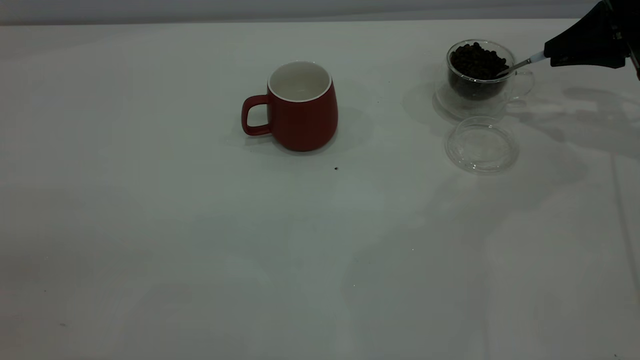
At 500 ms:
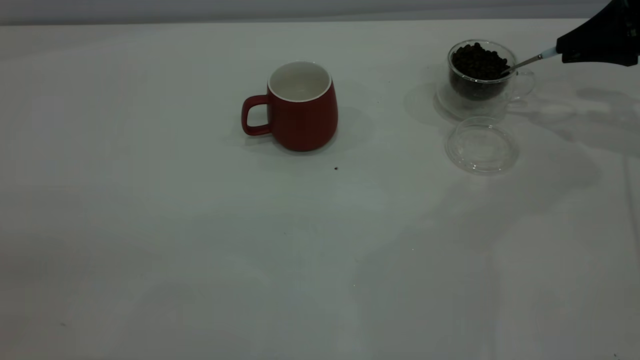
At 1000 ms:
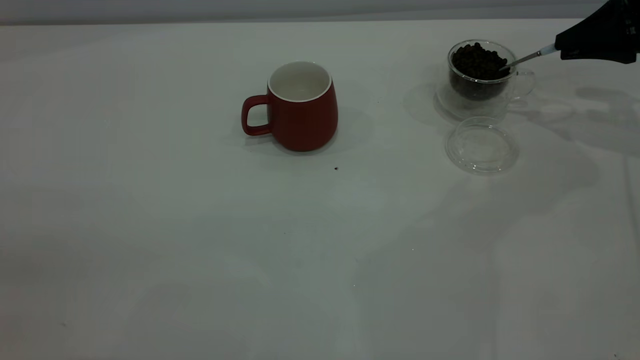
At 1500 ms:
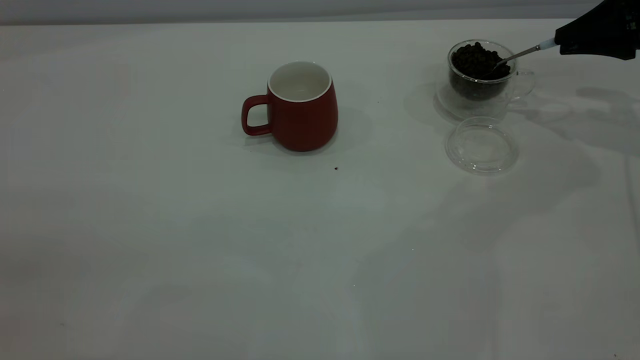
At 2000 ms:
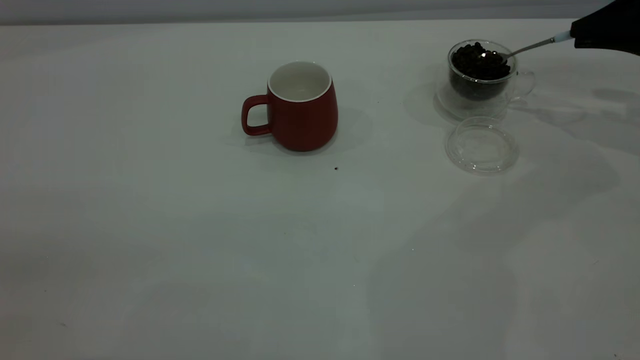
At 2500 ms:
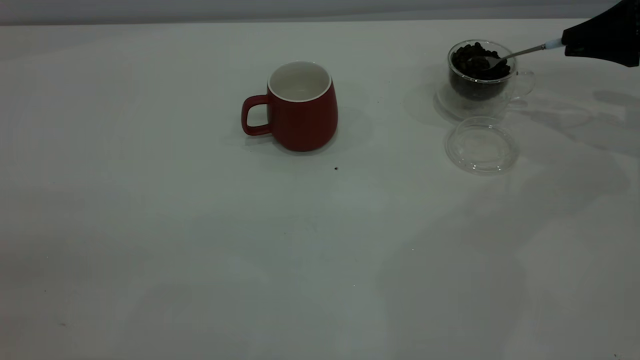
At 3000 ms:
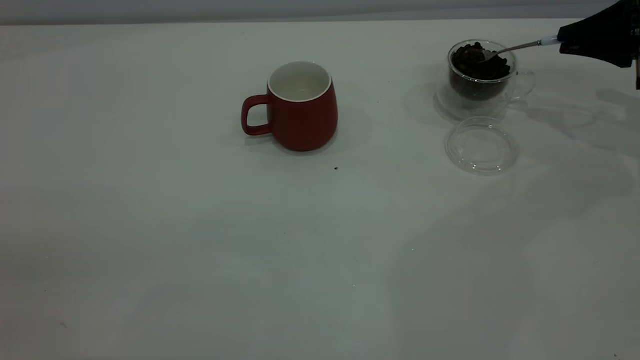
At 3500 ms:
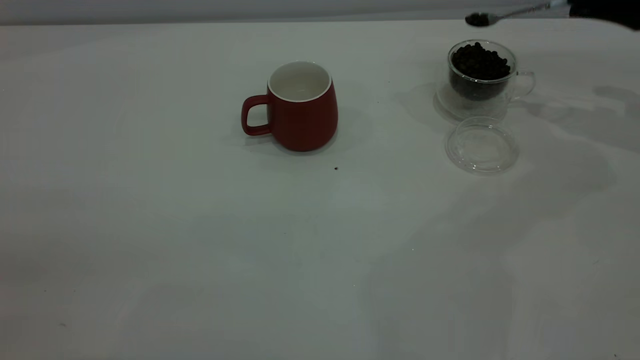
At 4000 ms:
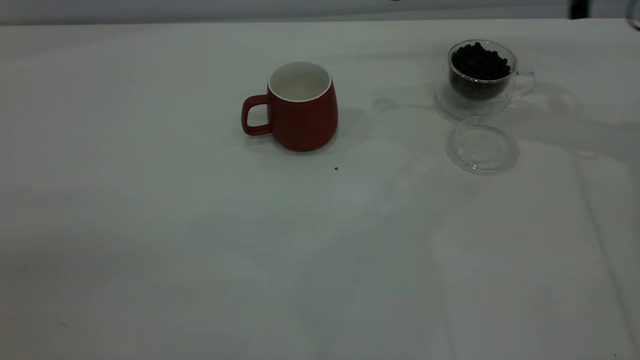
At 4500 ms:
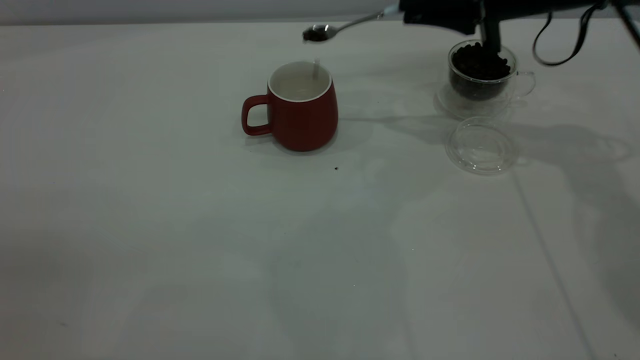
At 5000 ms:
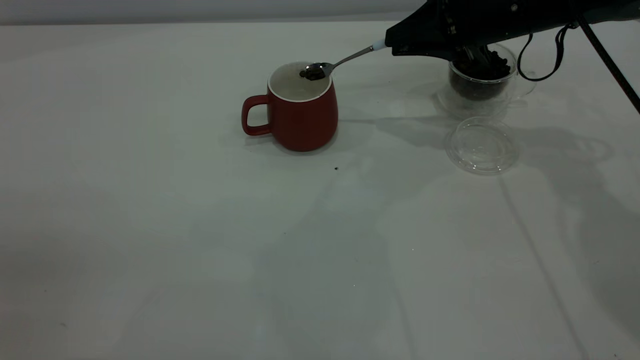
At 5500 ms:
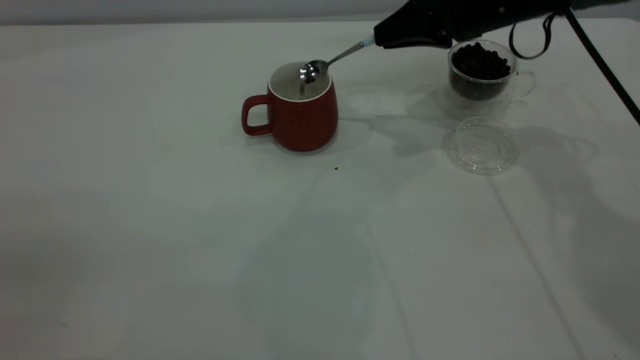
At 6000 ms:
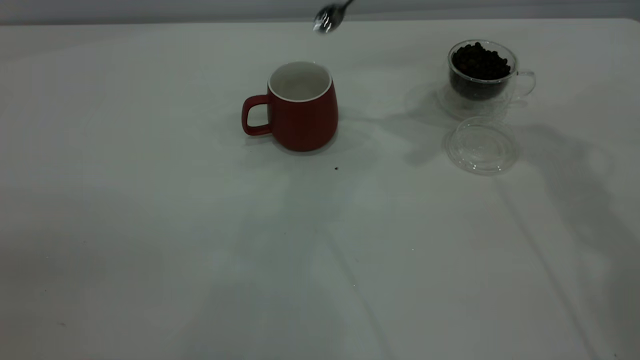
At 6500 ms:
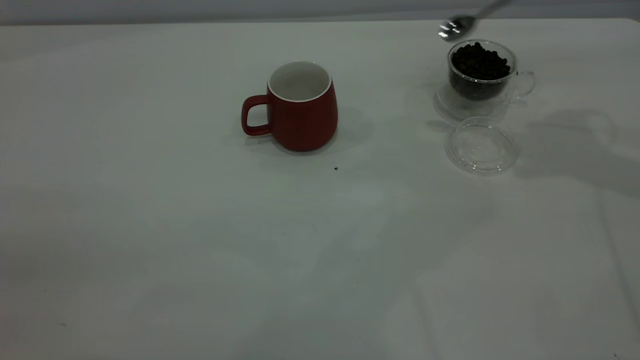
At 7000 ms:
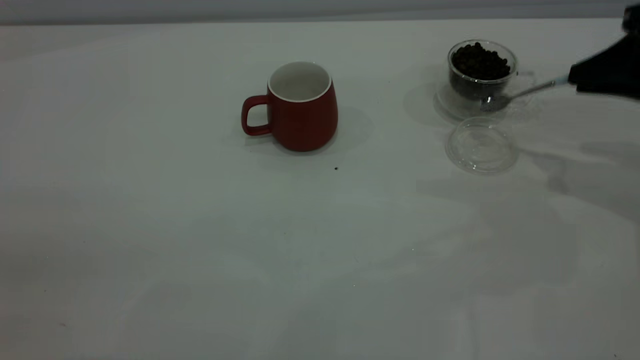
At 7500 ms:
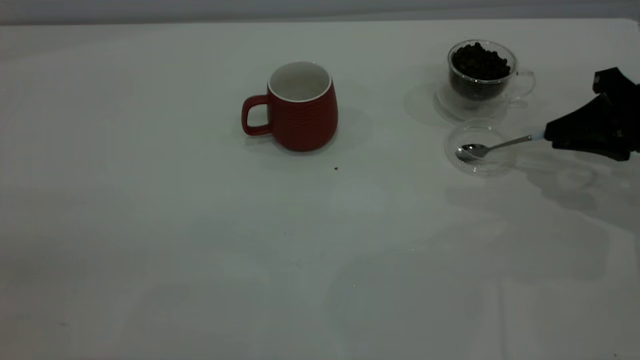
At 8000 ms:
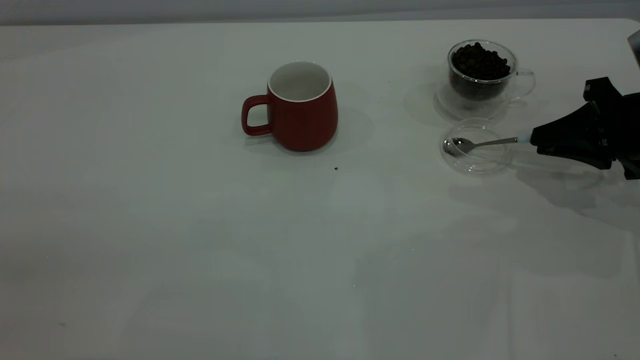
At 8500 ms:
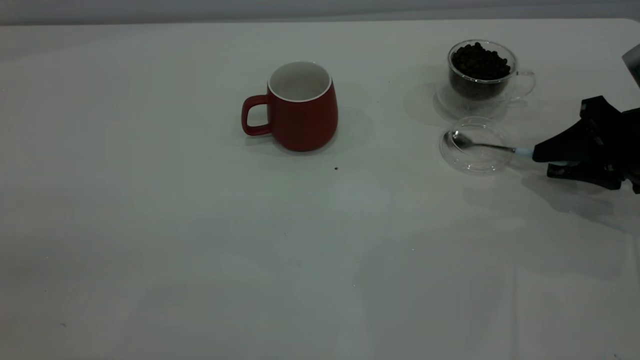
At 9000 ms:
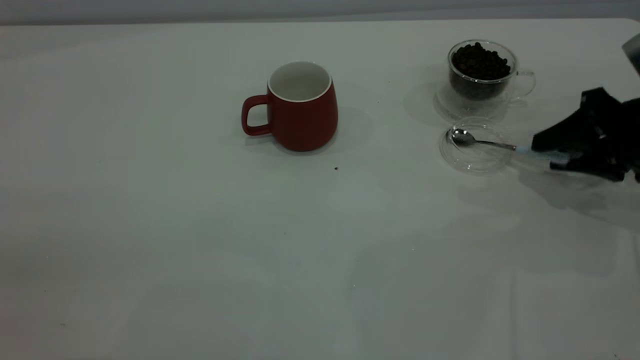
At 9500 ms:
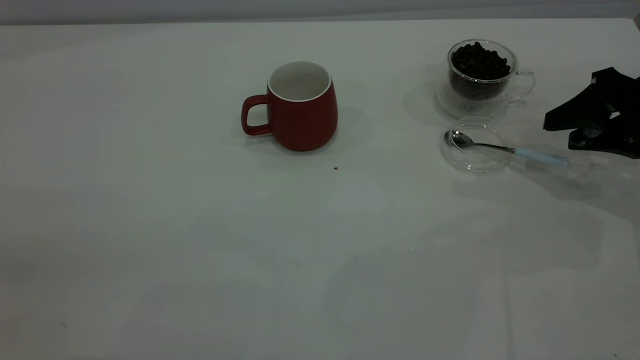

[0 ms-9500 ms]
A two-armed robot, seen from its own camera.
Task of the whole recording: the left gripper place the red cup in the center of the table, the right gripper take the blue spoon from the cup lid and scoop out the coffee beans from the coffee cup and put them into the red cup, the right gripper put the spoon back into the cup lid.
Step, 0 ms to 5500 ms: Scoop a spoonful of beans into the cup.
Step, 6000 ms to 9000 ms: Place the spoon back in its original place.
0 ms to 2000 ms: The grippers make only small movements.
2000 ms to 4000 ms: The right gripper is displaced to the left by roughly 10 cm.
4000 ms to 5500 ms: The right gripper heads to the left, covering about 10 cm.
5500 ms to 7500 ms: The right gripper goes some 20 cm to the right and backward.
7500 ms to 9500 ms: The right gripper opens up.
